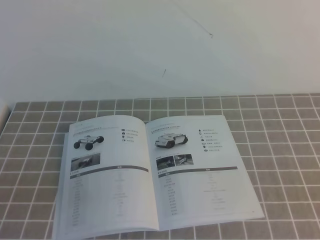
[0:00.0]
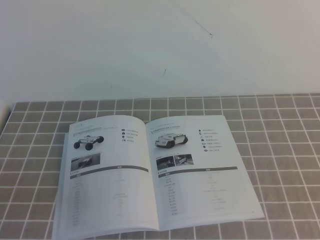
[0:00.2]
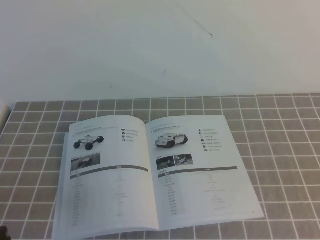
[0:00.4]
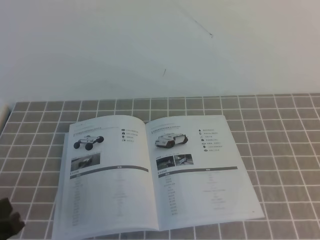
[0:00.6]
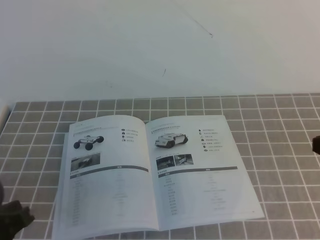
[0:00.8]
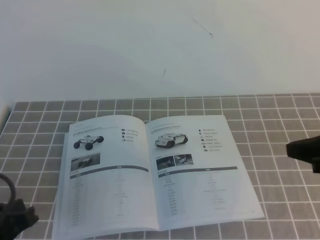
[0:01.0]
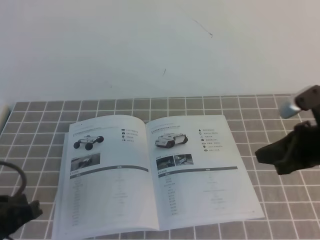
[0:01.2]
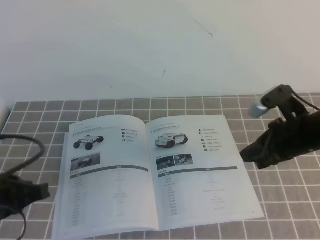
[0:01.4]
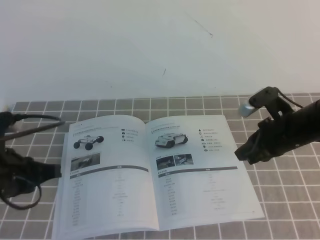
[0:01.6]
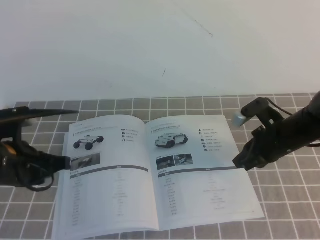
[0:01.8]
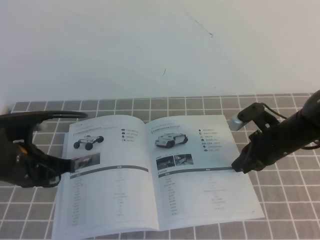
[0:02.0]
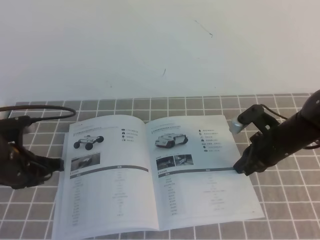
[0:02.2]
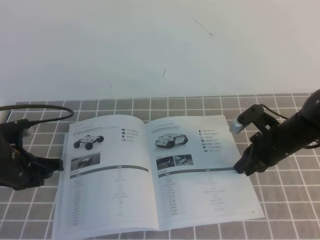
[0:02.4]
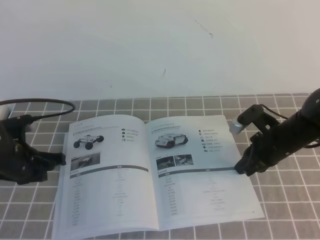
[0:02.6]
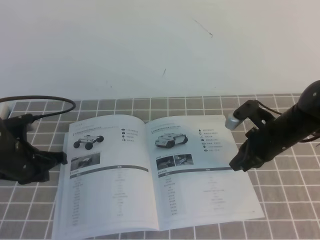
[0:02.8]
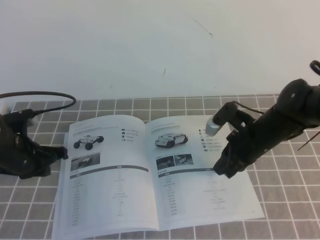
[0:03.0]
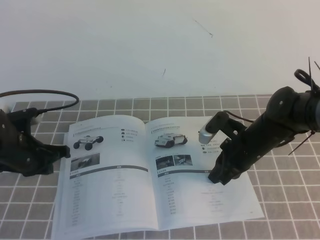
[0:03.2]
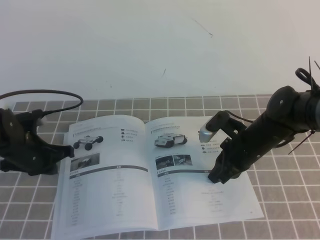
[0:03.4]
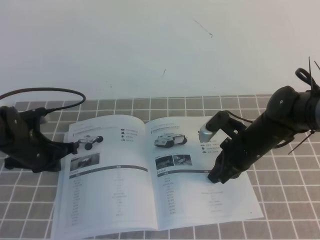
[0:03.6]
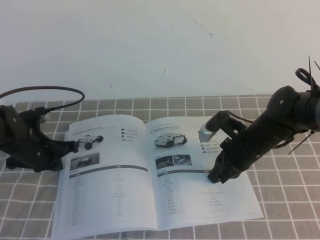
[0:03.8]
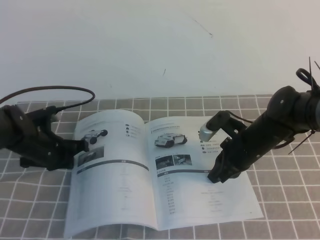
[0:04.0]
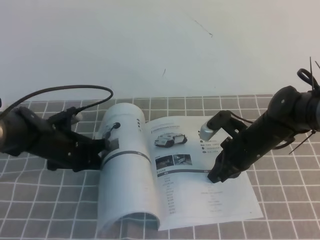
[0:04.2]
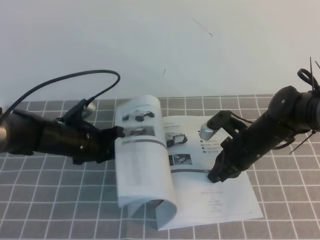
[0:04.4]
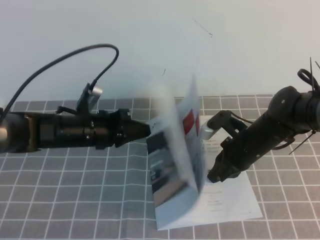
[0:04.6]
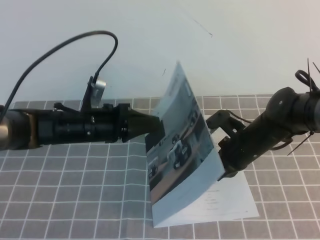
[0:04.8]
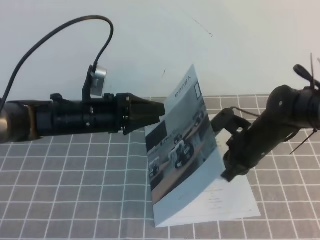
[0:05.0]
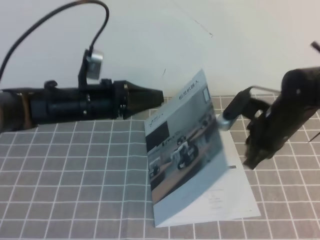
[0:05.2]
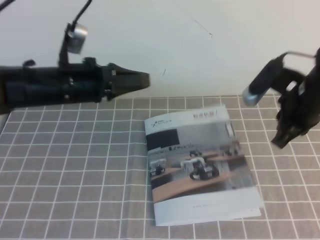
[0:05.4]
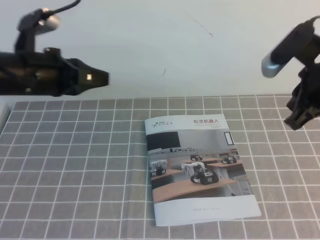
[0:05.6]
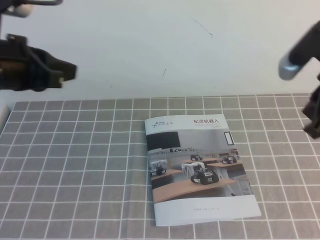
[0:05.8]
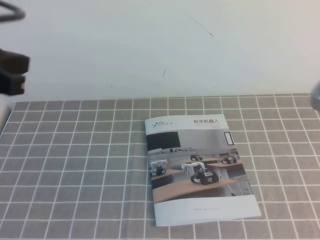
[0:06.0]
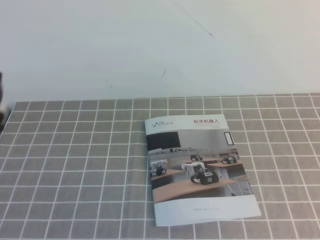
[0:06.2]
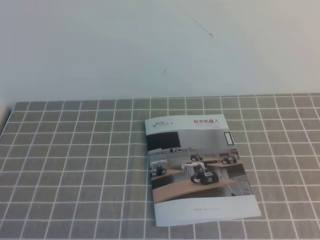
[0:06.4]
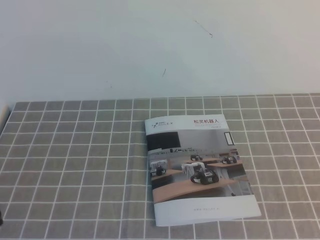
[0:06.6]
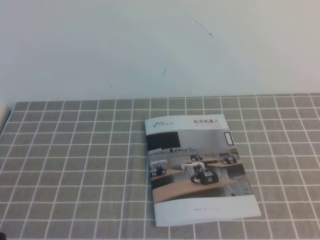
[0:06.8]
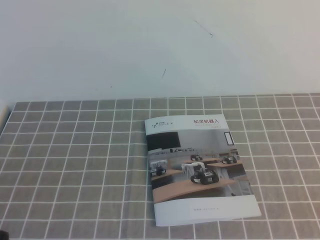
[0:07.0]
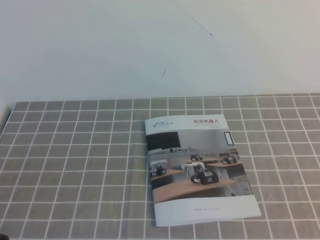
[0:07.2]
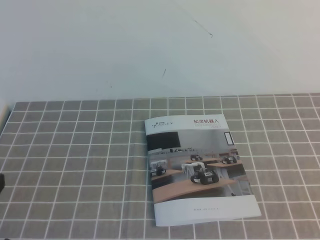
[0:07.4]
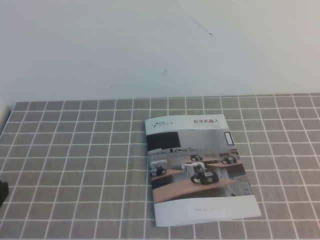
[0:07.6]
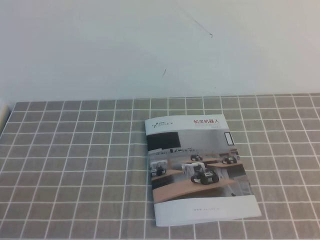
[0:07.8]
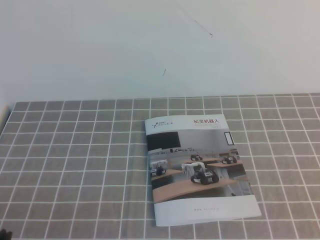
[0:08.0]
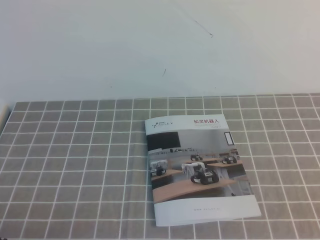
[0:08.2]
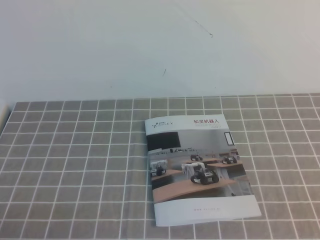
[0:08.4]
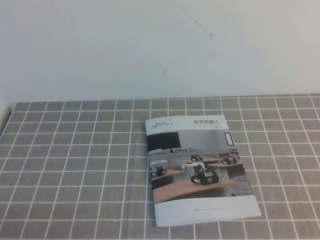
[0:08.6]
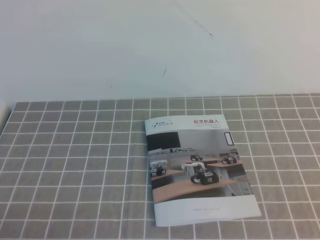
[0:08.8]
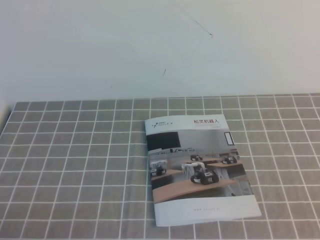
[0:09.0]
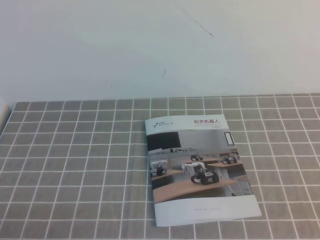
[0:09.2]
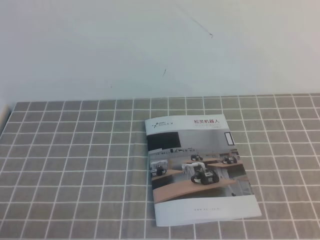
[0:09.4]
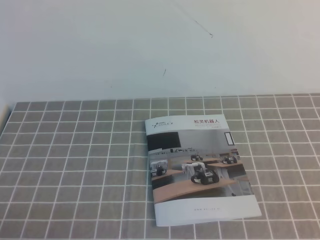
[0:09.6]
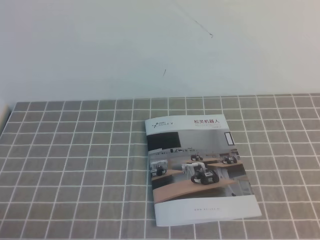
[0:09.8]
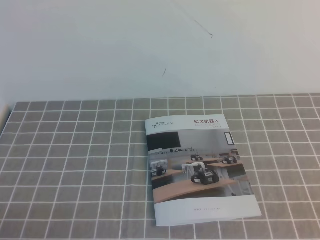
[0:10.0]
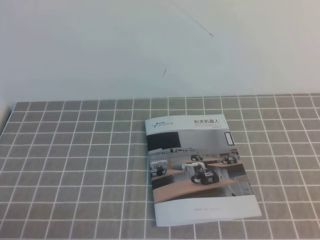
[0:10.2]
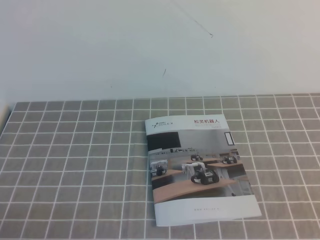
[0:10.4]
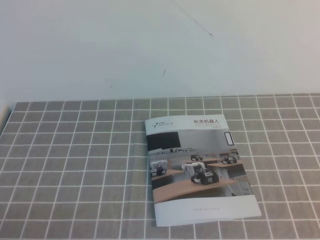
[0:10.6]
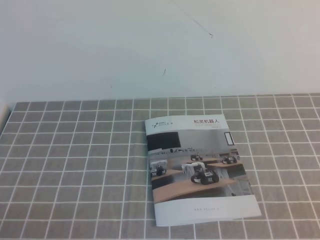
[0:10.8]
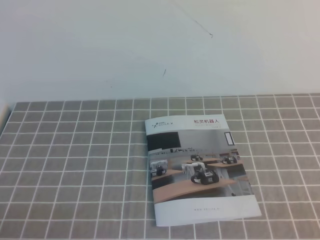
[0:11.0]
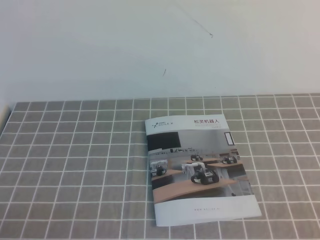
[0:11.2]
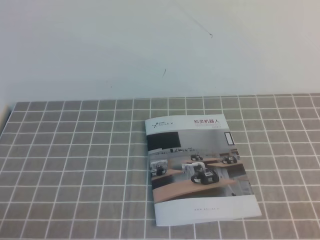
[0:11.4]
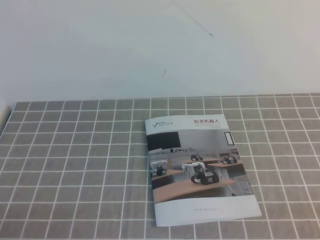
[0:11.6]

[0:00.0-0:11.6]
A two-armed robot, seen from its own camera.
Task of the whole recording: on the grey tablecloth, hold the book with one hand and close it with the other.
Step, 0:00.0 to 0:11.6: Close the open book.
0:00.0 to 0:01.4: The left gripper travels forward by about 15 cm; the right gripper goes approximately 25 cm forward.
0:01.4 to 0:02.8: The right gripper heads downward and forward, covering some 10 cm; the left gripper moves forward and downward, some 15 cm.
0:02.8 to 0:04.4: The left gripper heads to the right, covering approximately 10 cm.
0:04.4 to 0:05.8: The left gripper shifts some 20 cm upward, and opens, then closes once more. The right gripper travels upward and backward by about 25 cm.
0:05.8 to 0:07.2: The left gripper goes some 20 cm backward. Meanwhile the right gripper moves backward and downward, about 20 cm.
